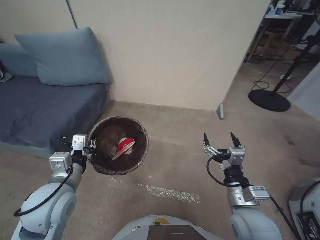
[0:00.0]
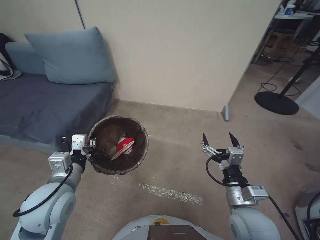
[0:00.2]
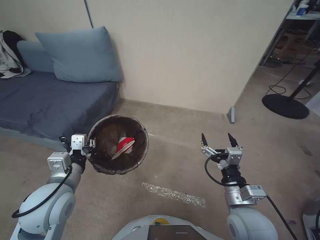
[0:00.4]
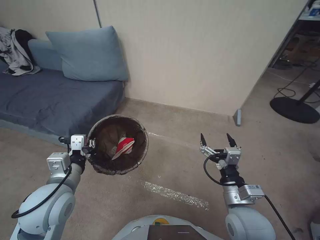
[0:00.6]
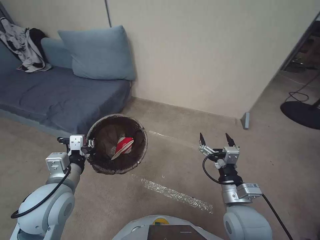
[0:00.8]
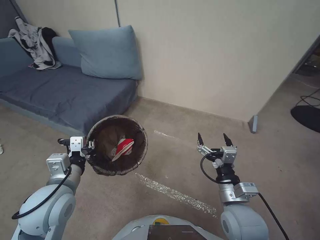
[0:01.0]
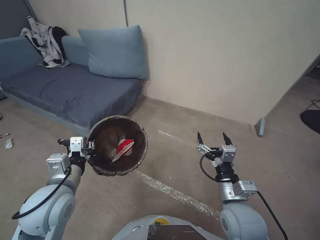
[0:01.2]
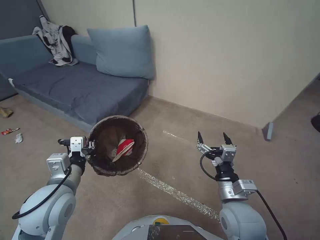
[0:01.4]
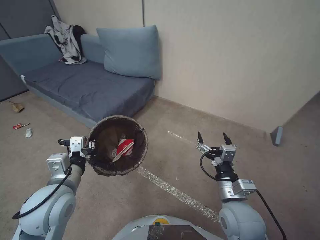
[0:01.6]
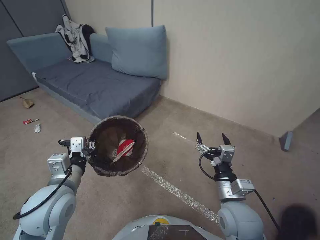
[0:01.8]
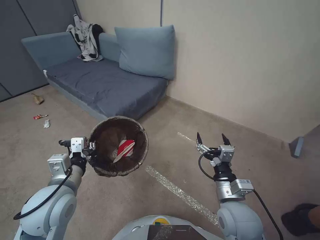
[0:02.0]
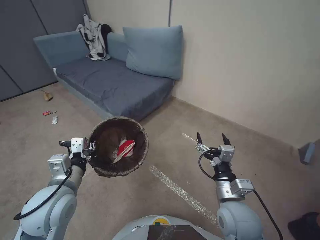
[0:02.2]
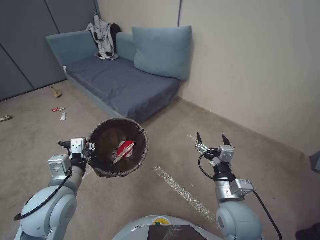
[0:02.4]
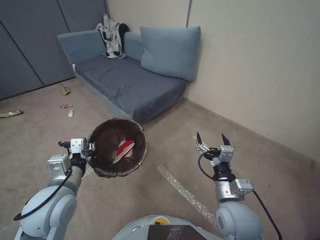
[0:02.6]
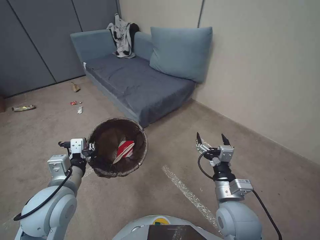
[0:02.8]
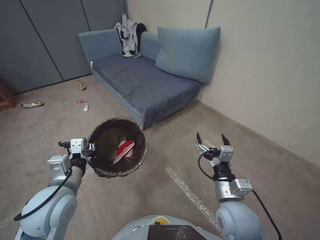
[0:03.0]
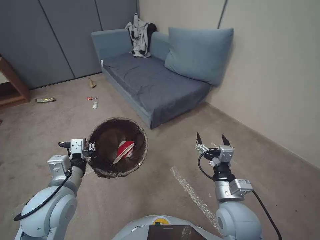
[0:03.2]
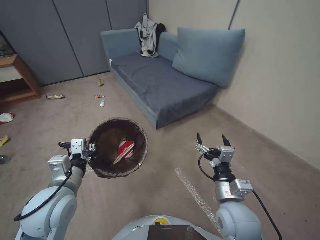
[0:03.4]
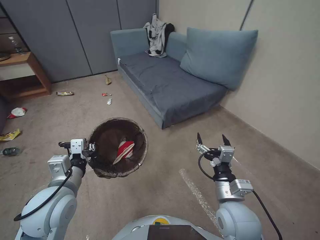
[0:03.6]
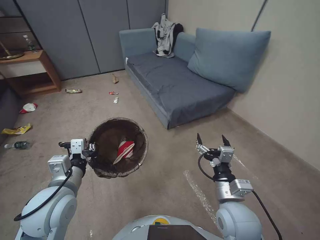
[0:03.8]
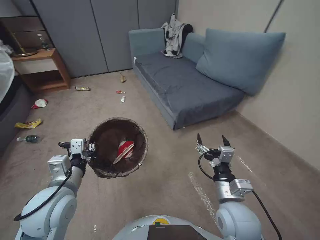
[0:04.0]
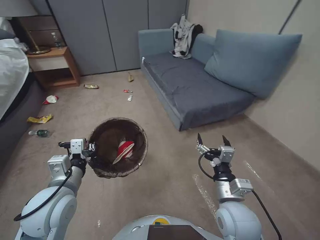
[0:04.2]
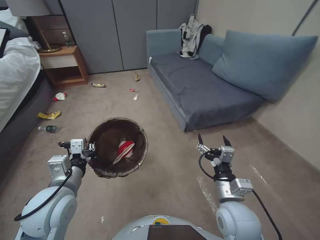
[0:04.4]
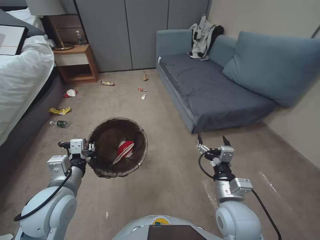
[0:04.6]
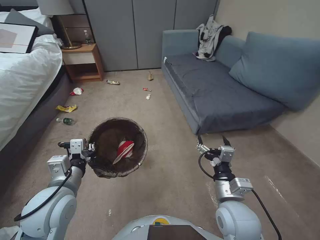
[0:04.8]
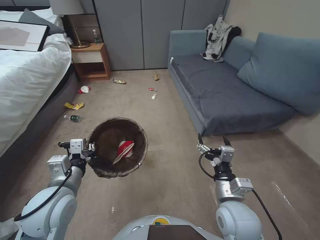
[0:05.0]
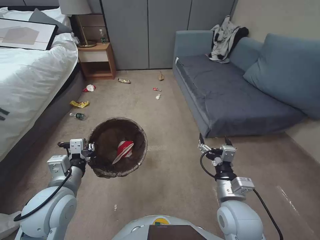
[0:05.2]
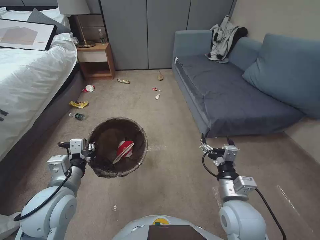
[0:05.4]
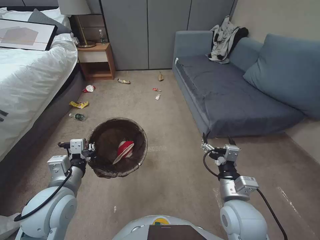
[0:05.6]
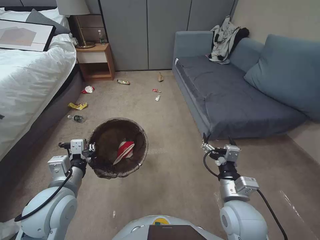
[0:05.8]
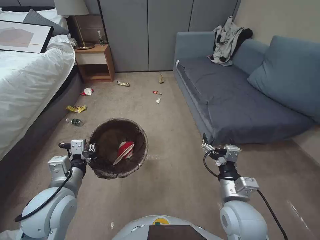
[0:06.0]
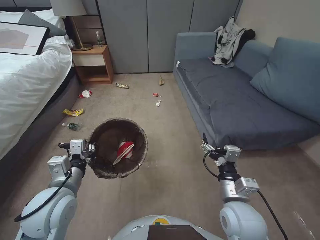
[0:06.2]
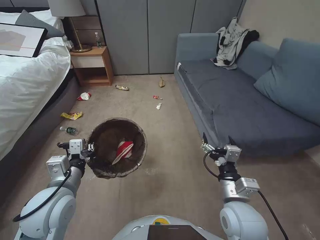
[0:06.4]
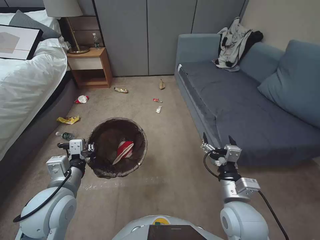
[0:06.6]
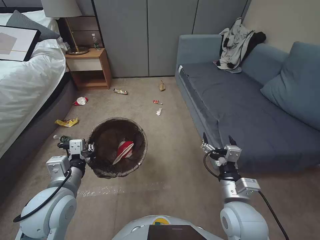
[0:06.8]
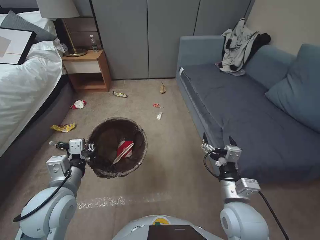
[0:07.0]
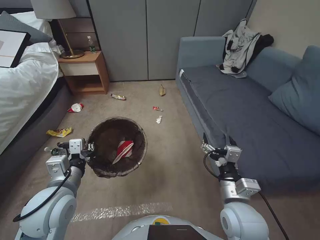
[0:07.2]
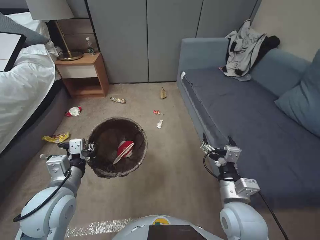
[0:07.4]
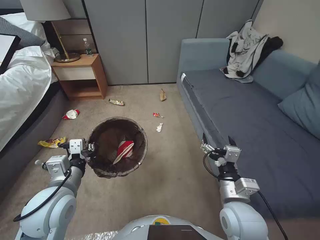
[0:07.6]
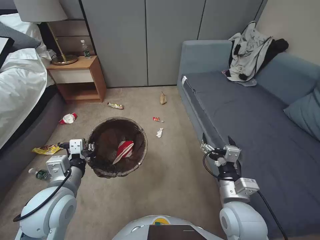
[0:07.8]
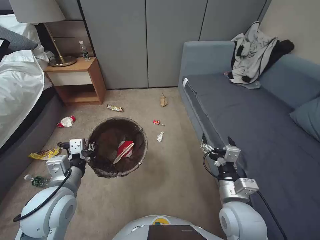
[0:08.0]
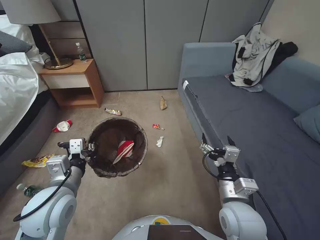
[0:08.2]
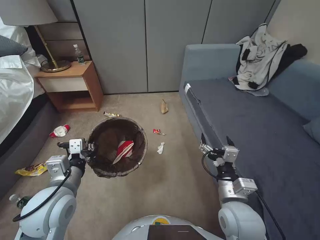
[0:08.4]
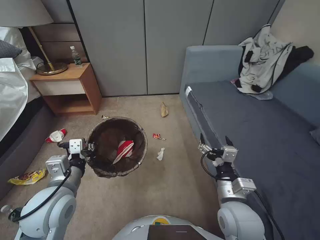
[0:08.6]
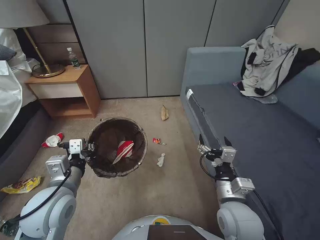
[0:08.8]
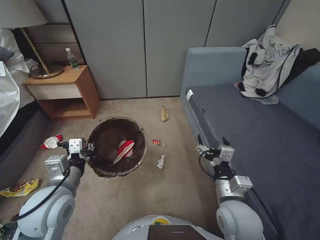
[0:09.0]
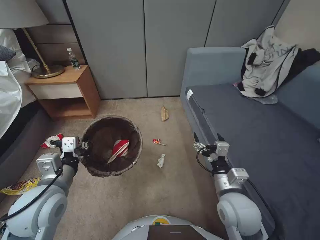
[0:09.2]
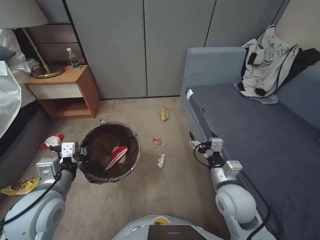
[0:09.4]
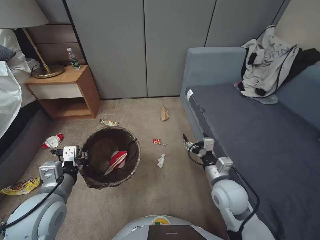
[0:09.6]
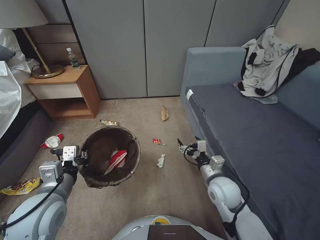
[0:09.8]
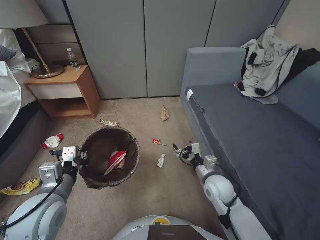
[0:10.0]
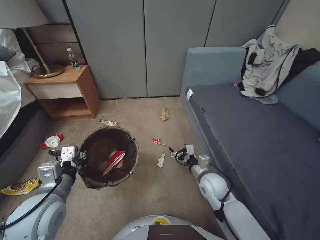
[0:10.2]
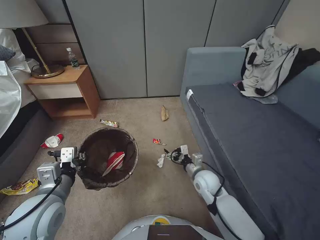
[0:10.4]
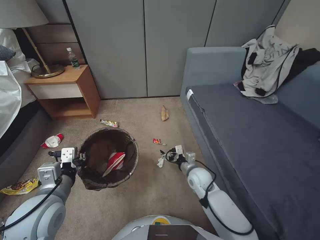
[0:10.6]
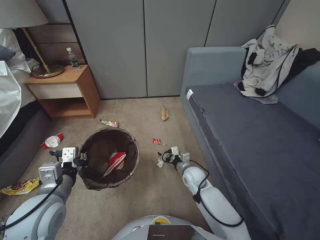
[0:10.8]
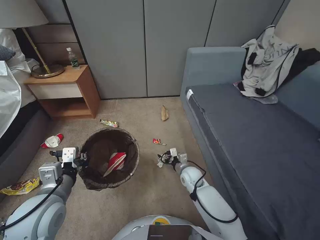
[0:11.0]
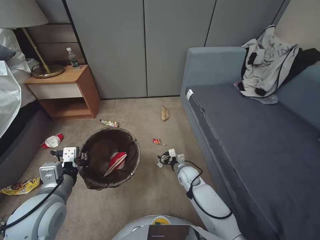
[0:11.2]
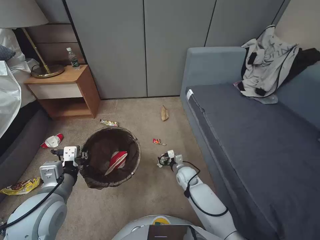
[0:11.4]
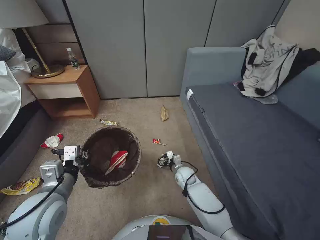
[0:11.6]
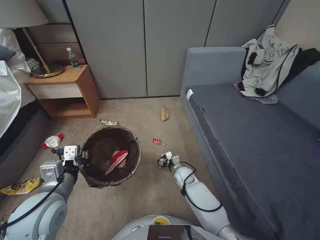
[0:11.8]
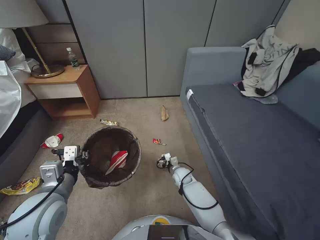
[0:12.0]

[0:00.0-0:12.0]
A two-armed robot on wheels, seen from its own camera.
Task of the whole recording: Pick up the trash bin, then pick up the garbage from the floor and place it into the trash bin.
0:09.0 to 0:10.4: The right gripper shifts roughly 15 cm forward and downward.
0:10.4 to 0:12.0: The right gripper travels downward, forward and to the left by about 20 cm.

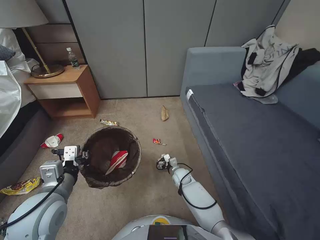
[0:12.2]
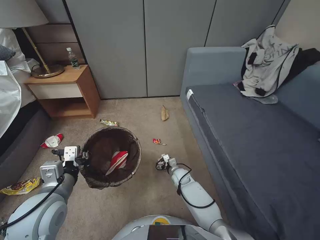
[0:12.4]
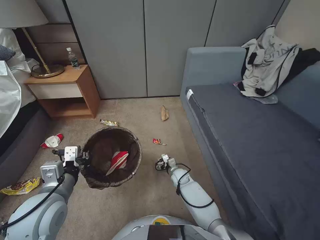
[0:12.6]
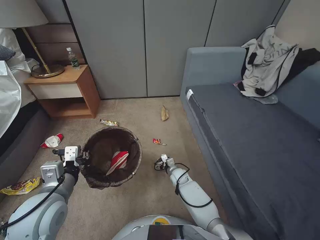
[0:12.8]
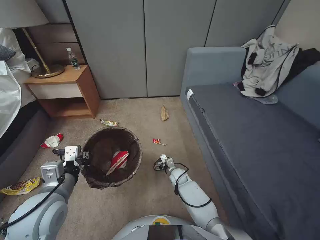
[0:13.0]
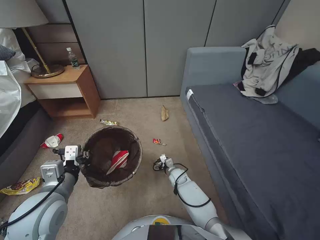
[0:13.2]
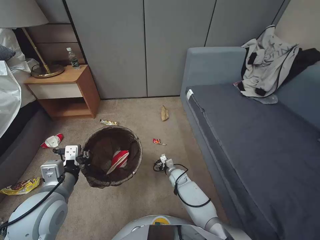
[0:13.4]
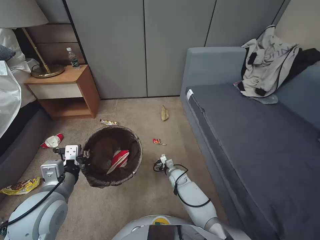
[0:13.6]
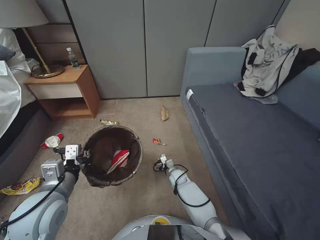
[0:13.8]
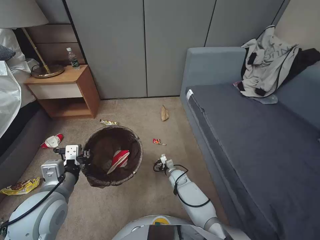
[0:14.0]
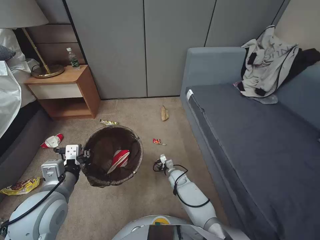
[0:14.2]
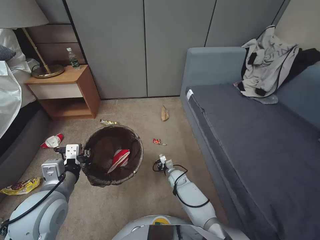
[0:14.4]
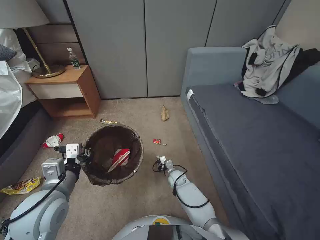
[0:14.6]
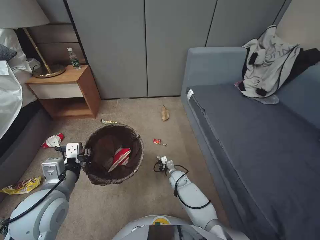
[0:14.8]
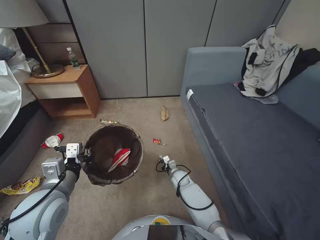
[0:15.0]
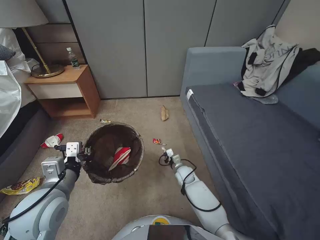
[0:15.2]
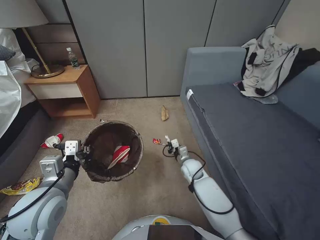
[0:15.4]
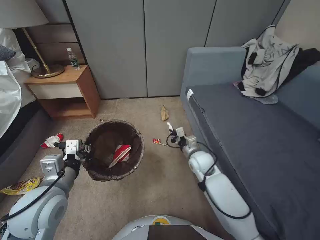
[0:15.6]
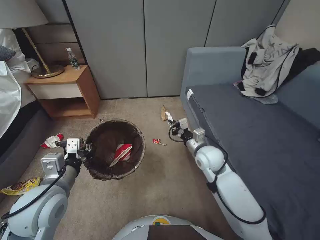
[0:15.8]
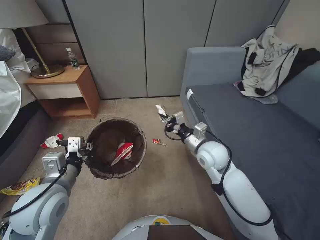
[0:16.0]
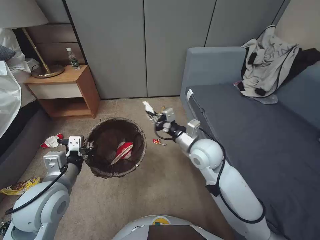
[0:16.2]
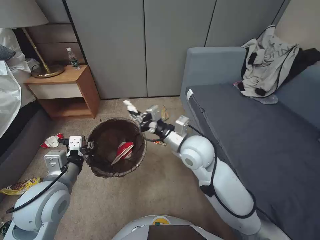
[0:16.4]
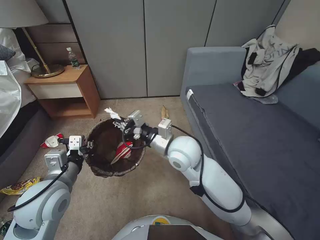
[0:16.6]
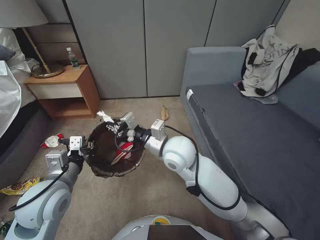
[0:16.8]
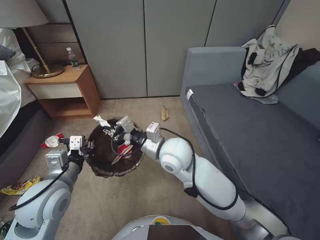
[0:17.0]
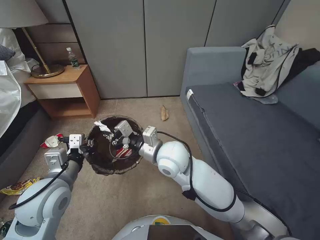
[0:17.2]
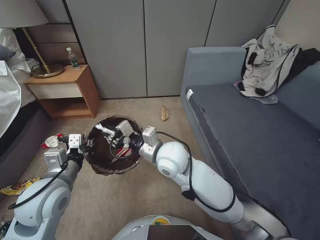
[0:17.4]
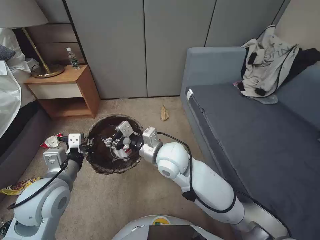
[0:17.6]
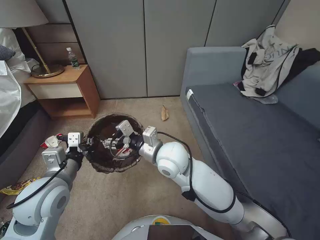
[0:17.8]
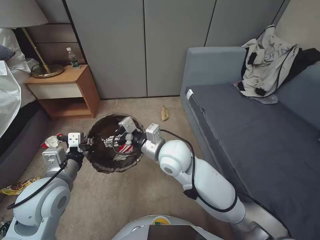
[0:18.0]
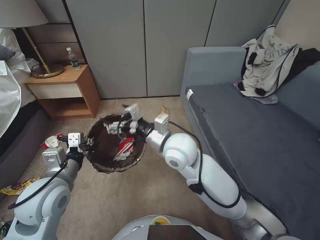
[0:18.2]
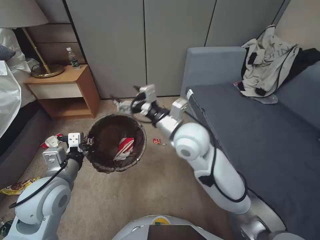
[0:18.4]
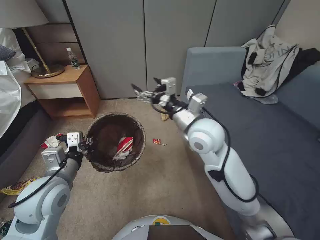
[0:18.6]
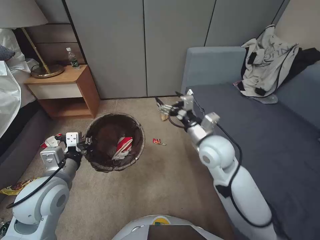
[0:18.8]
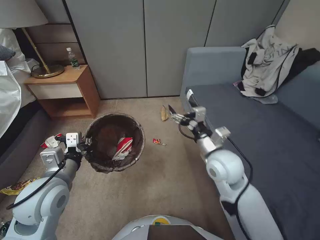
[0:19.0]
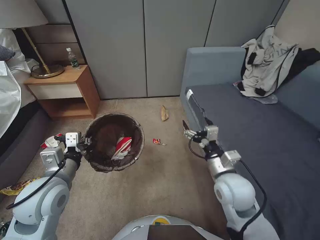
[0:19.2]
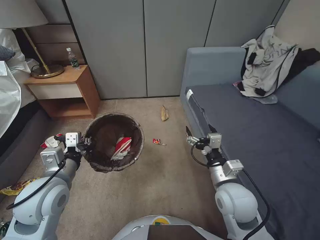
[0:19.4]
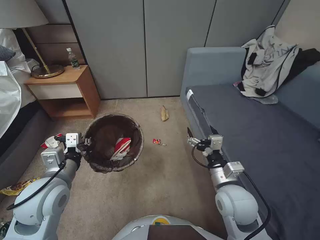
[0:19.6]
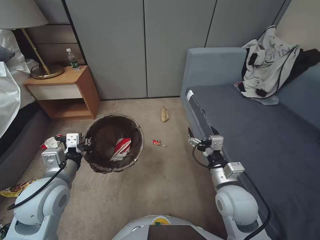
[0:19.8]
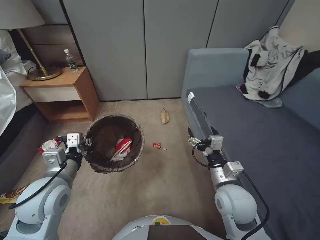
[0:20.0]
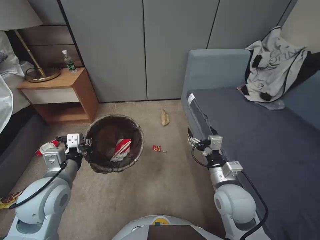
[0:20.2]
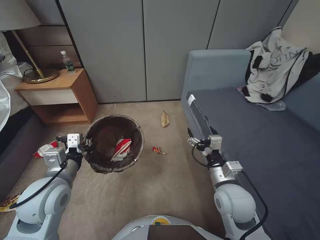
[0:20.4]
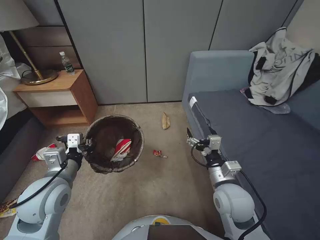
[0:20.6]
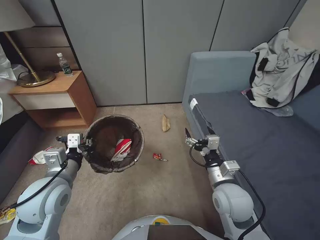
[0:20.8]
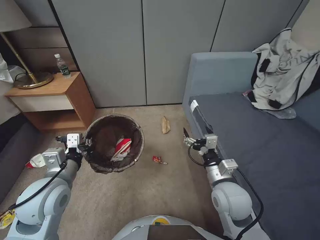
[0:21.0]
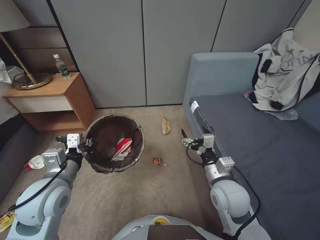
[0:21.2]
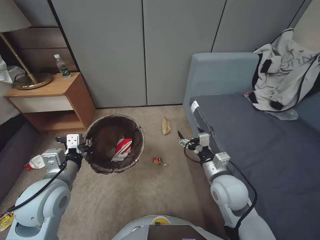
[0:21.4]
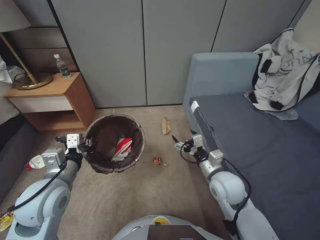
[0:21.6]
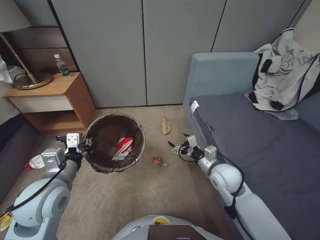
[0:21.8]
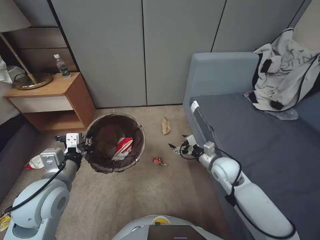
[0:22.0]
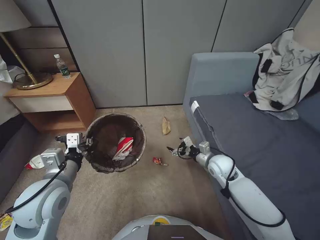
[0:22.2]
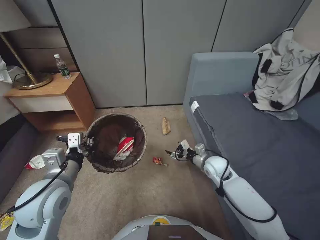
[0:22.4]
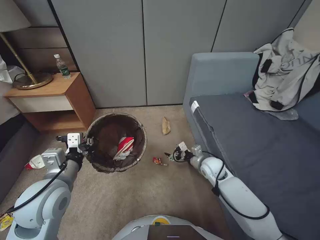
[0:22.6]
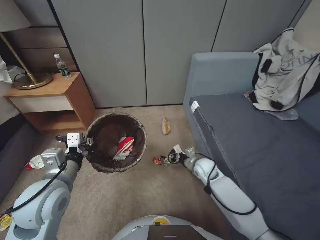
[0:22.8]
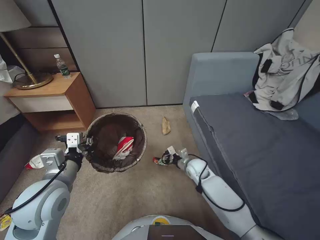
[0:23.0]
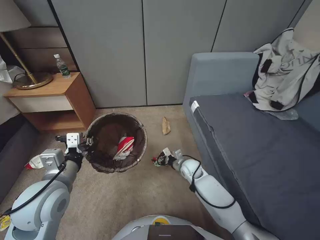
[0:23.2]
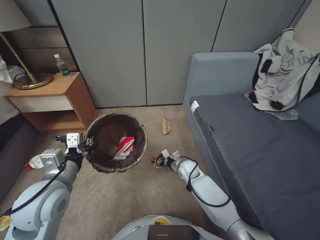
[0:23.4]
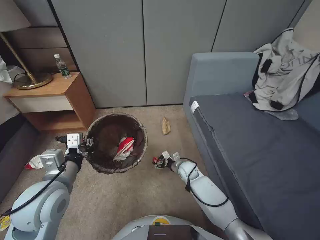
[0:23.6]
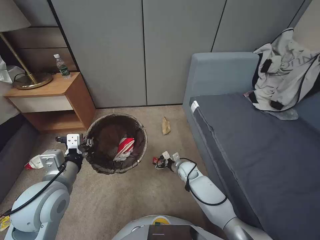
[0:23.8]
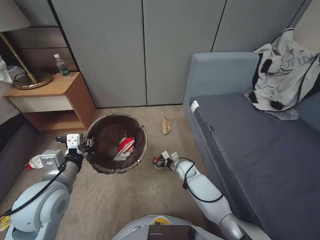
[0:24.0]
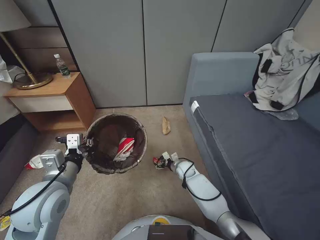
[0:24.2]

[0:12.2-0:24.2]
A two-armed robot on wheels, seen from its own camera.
Task of the whole recording: Pick up the trash bin, then pick up the garbage from the floor and place it into the trash bin.
0:12.2 to 0:13.8: There are only small adjustments of the grippers.
0:13.8 to 0:15.2: The right gripper closes up.
0:15.2 to 0:16.6: The right gripper travels upward by approximately 35 cm.
0:16.6 to 0:18.2: The right gripper opens.
0:18.2 to 0:19.8: The right gripper shifts about 20 cm to the right, backward and downward.
0:21.2 to 0:22.6: The right gripper shifts some 15 cm forward and downward.
0:22.6 to 0:24.2: The right gripper moves downward and to the left, approximately 15 cm.
